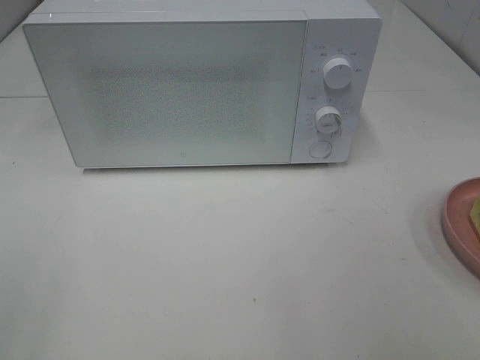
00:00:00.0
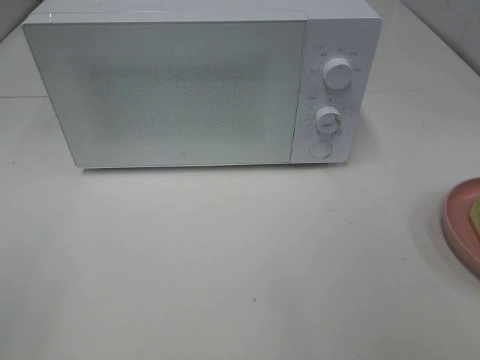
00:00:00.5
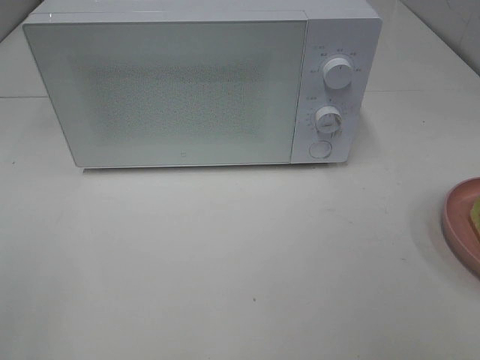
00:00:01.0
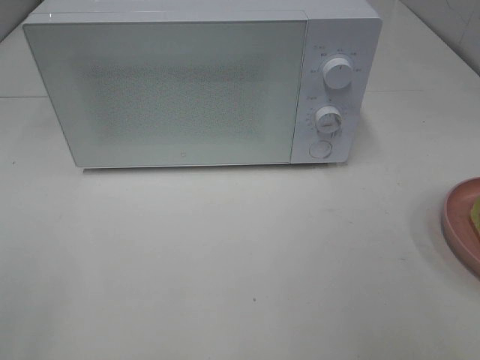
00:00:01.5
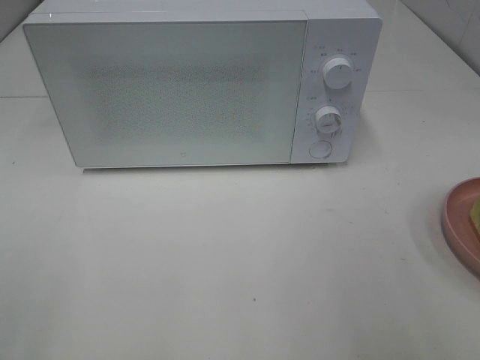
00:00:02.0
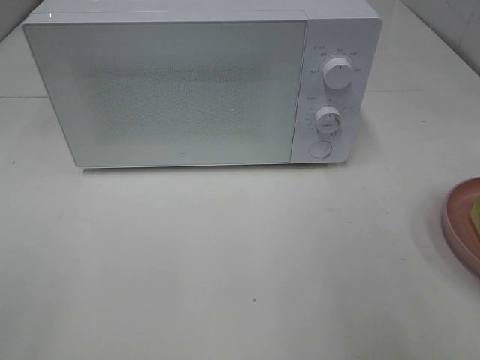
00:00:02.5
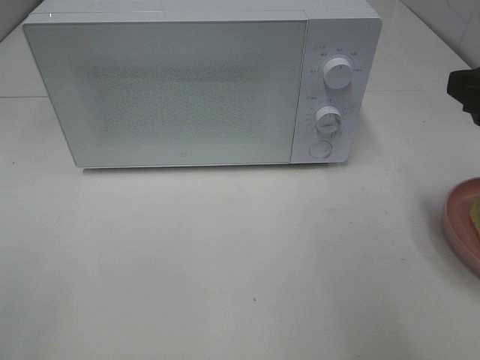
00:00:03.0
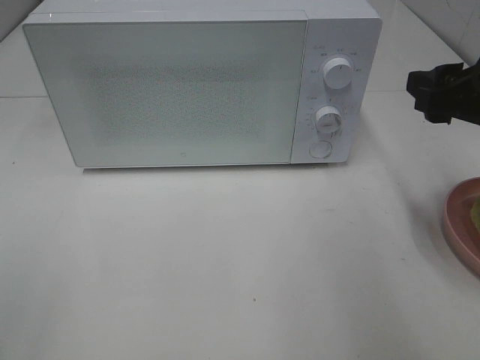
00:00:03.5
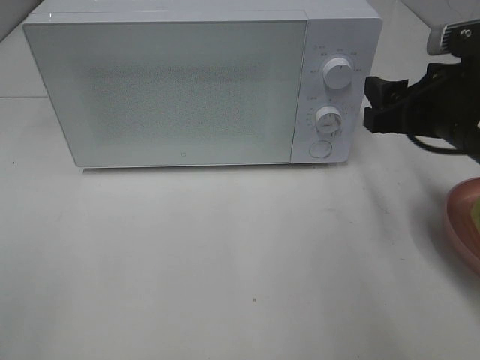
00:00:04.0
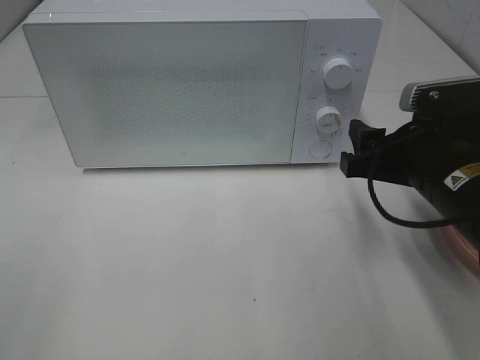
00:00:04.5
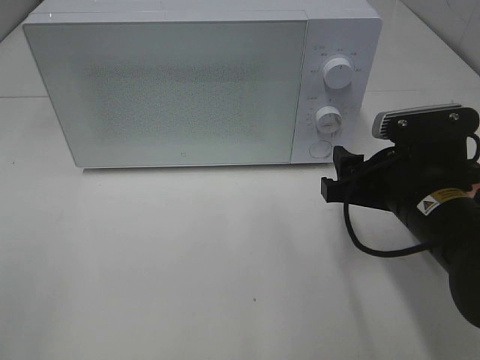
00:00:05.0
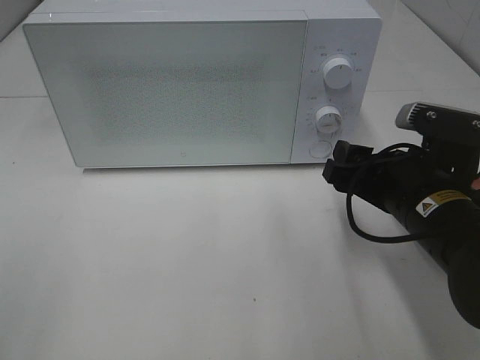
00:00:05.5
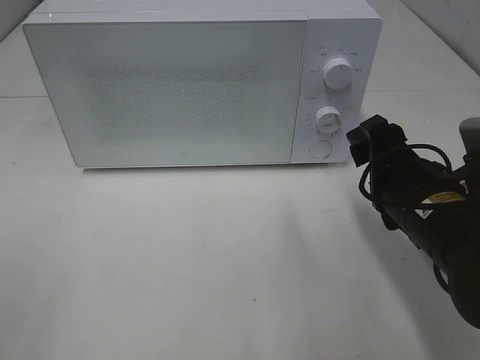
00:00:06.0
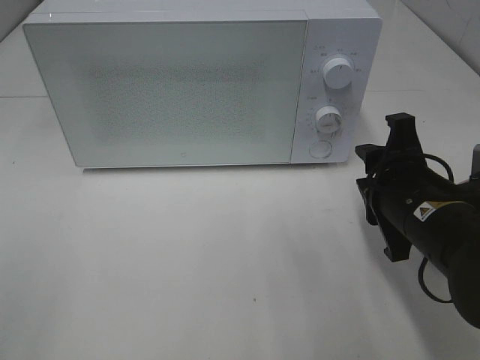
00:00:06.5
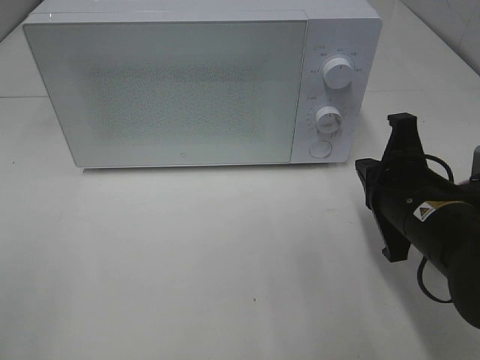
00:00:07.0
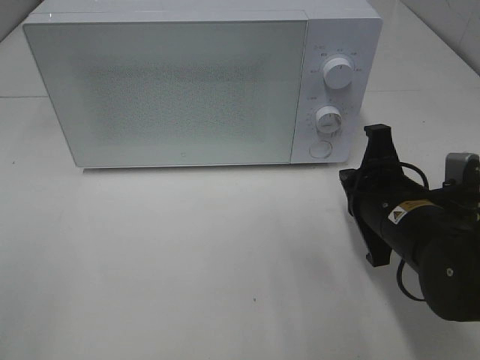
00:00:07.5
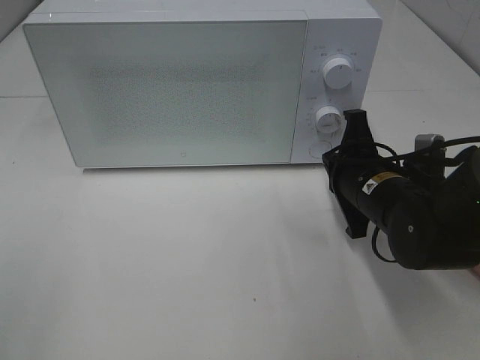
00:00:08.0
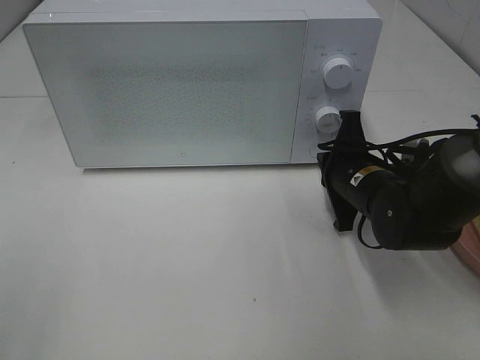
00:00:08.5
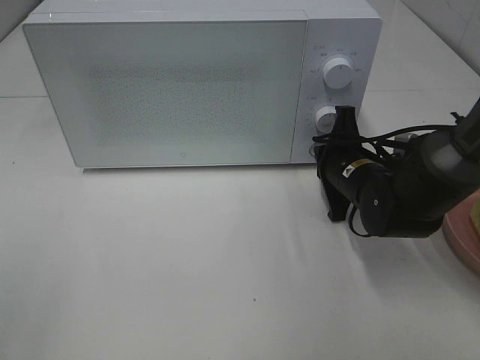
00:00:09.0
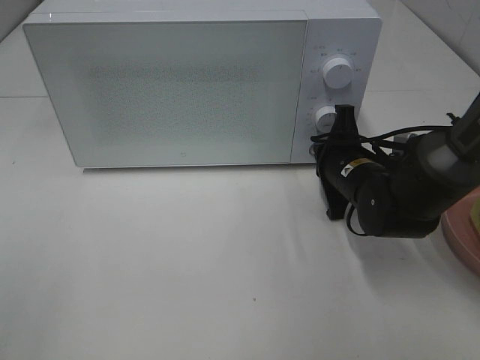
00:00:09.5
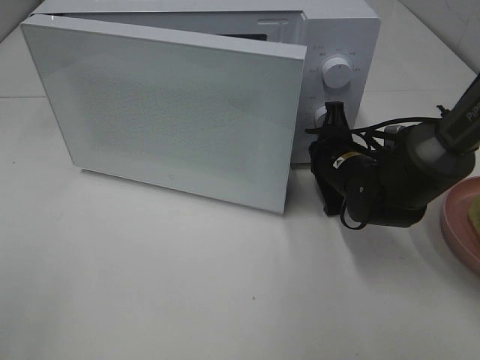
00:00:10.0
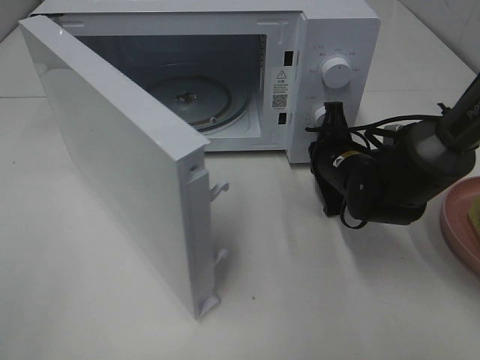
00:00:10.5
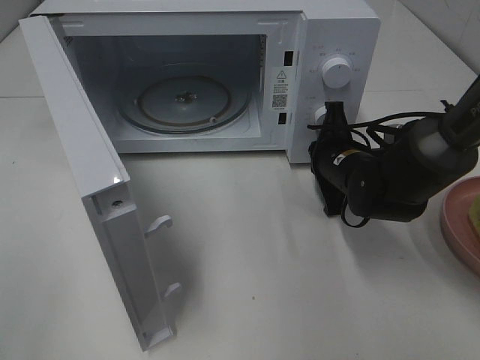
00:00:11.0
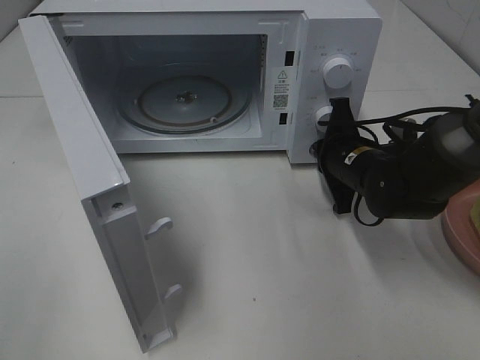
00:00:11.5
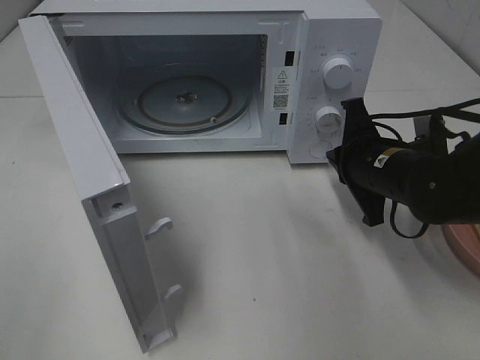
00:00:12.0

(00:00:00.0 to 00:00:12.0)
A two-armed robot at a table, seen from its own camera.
Task of the whole recording: Heat Sandwich.
Step, 00:00:00.0 - 00:00:11.5: Right hand: press the switch.
00:00:02.0 - 00:00:04.0: The right gripper moves forward and downward, some 20 cm.
00:00:04.0 - 00:00:06.0: The right gripper heads downward, covering about 5 cm.
00:00:06.0 - 00:00:08.0: The right gripper goes some 5 cm forward, and closes up.
00:00:08.0 - 00:00:10.0: The right gripper shifts some 5 cm forward.
00:00:10.0 - 00:00:12.0: The right gripper goes some 5 cm backward.

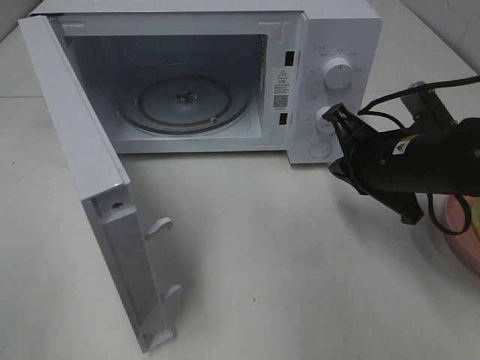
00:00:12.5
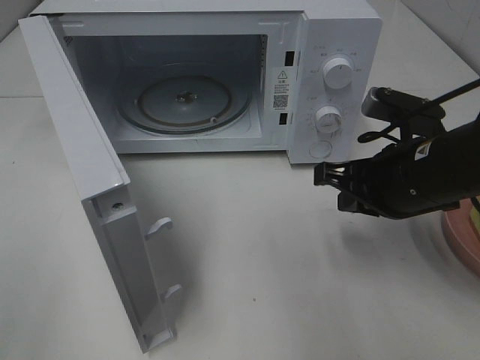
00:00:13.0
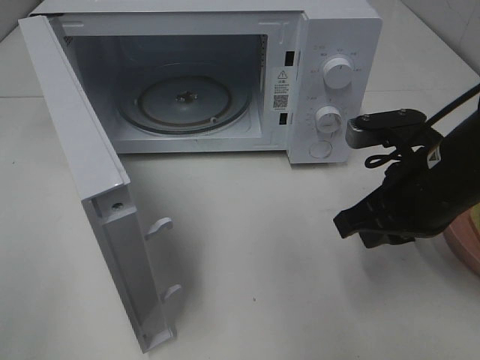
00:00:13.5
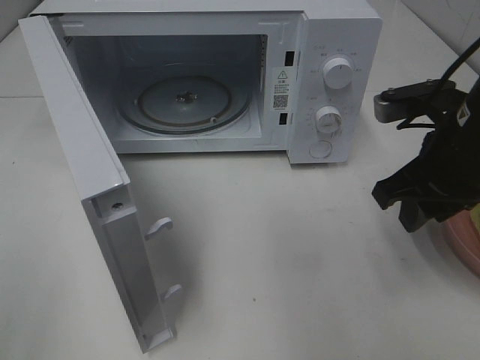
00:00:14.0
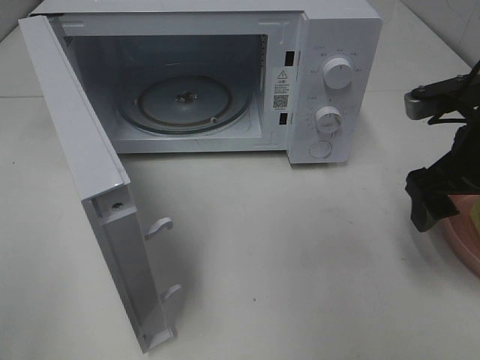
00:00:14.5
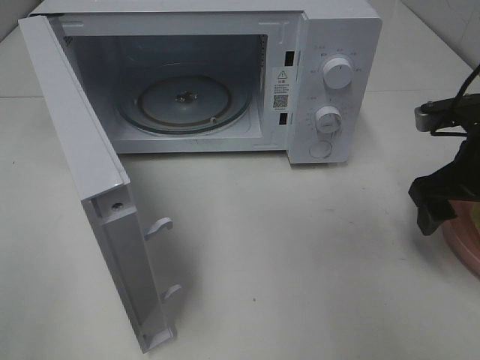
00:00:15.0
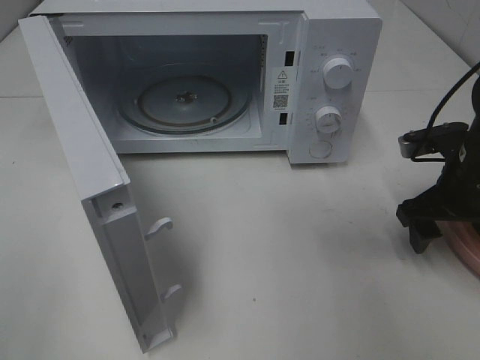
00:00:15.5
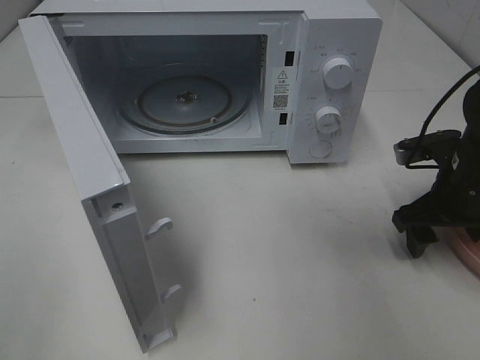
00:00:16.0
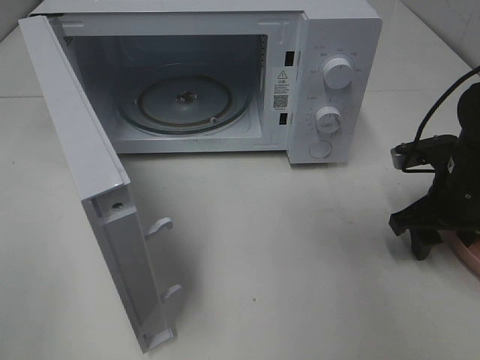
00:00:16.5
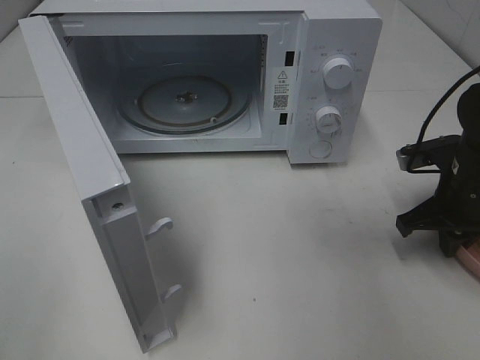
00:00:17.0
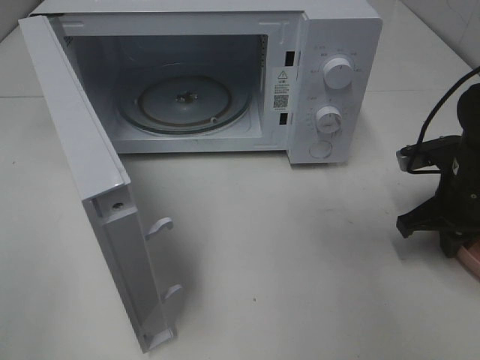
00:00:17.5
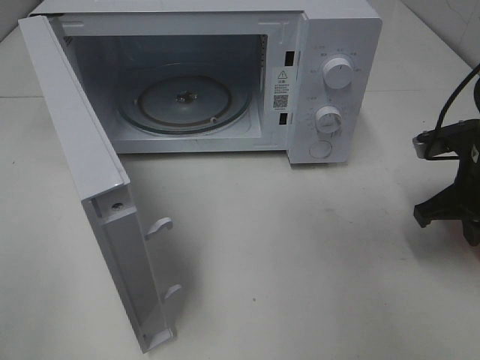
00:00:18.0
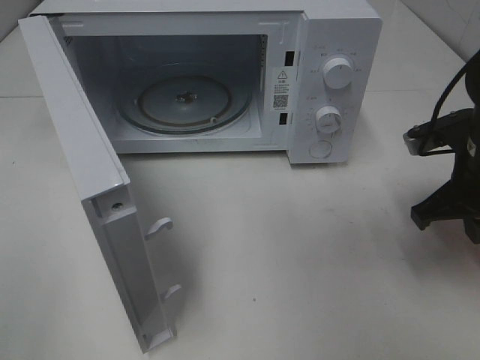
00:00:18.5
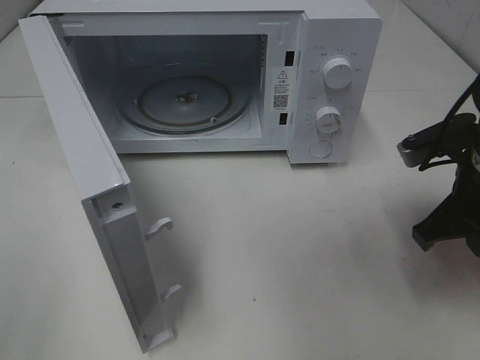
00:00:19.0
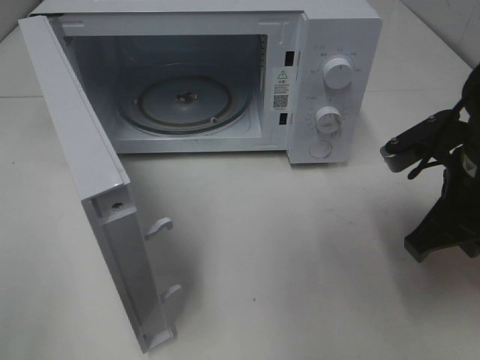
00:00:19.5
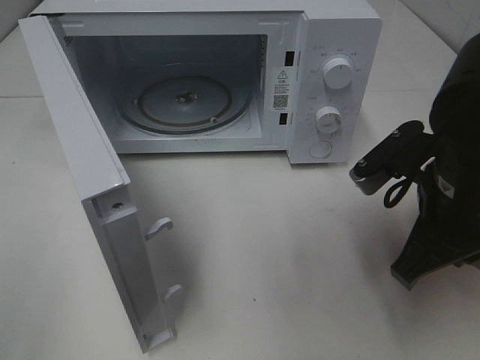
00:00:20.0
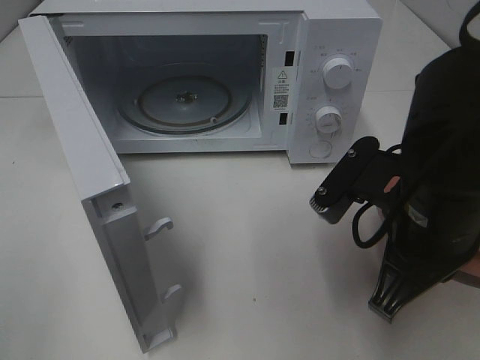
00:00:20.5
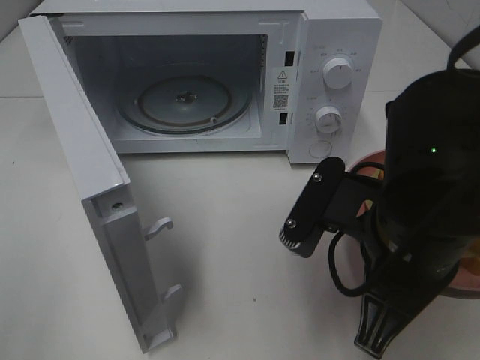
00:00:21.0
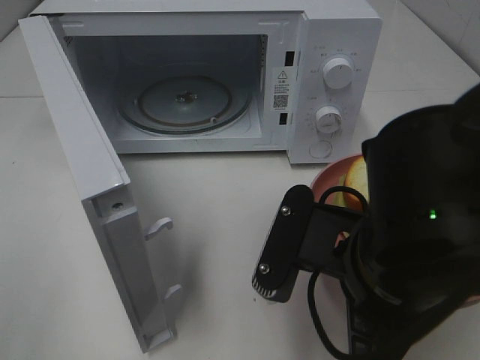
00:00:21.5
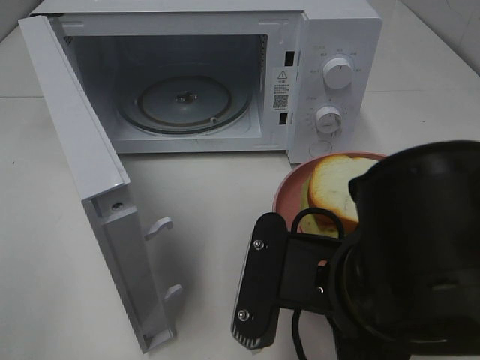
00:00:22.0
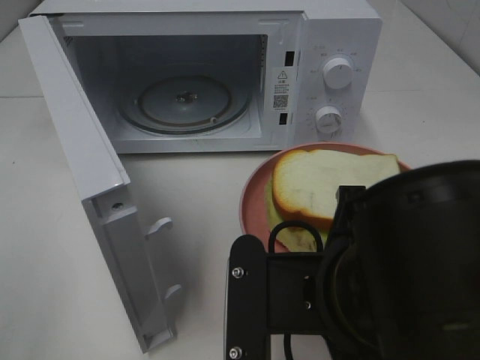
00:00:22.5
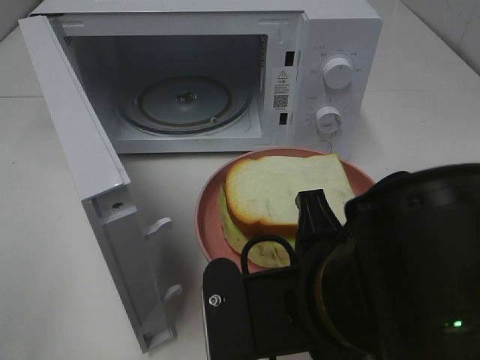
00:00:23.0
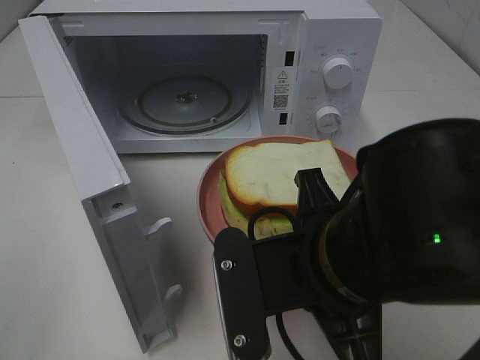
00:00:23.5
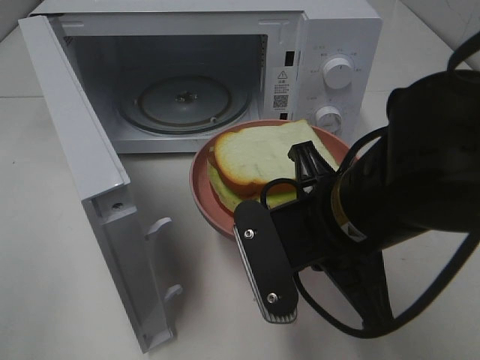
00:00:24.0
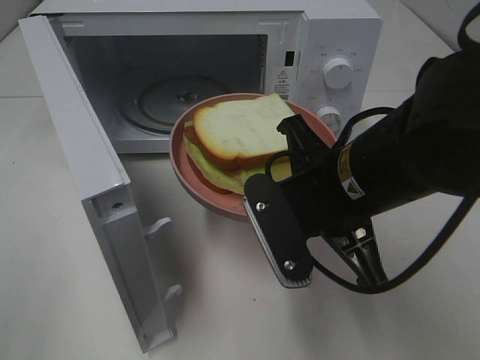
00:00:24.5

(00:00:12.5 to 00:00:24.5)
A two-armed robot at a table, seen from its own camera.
Task of the whole recording: Heat Sandwich.
Step, 00:00:12.5 - 00:00:16.5: Right hand: grab the plate with the sandwich.
00:00:12.5 - 00:00:14.5: The right gripper heads to the right and upward, covering roughly 10 cm, and opens its fingers.
00:00:14.5 - 00:00:16.5: The right gripper goes about 10 cm downward.
00:00:16.5 - 00:00:18.5: The right gripper goes about 5 cm upward, and closes.
00:00:18.5 - 00:00:20.5: The right gripper shifts about 15 cm to the left and backward.
00:00:20.5 - 00:00:22.5: The right gripper heads backward and to the left, covering about 10 cm.
00:00:22.5 - 00:00:24.5: The right gripper is displaced forward by some 10 cm.

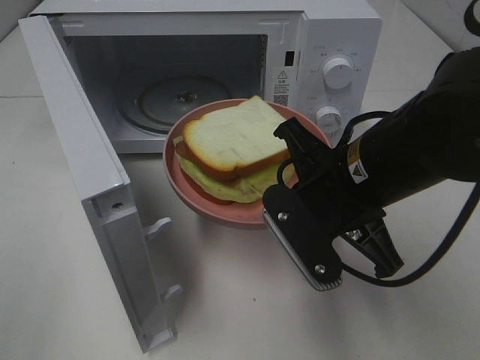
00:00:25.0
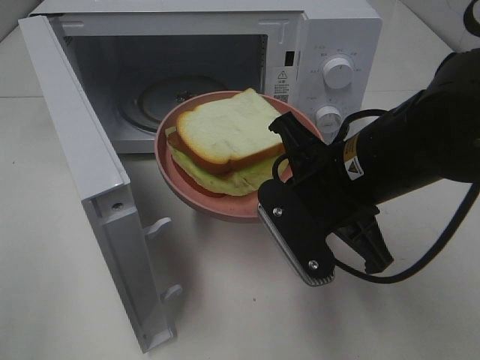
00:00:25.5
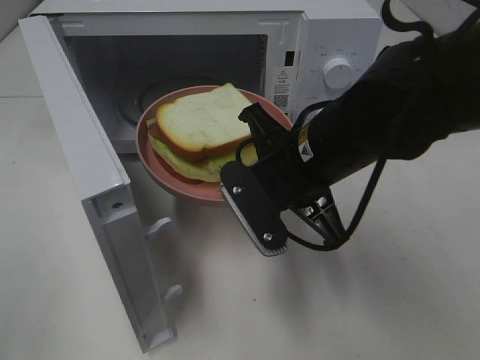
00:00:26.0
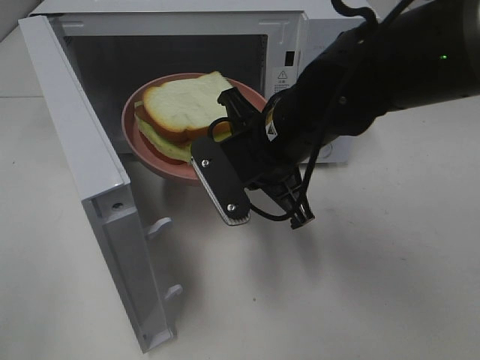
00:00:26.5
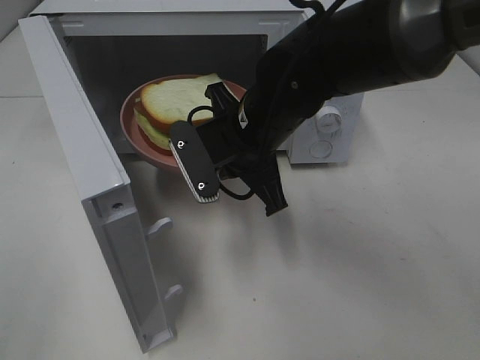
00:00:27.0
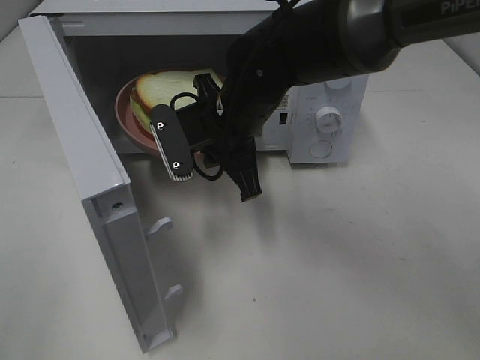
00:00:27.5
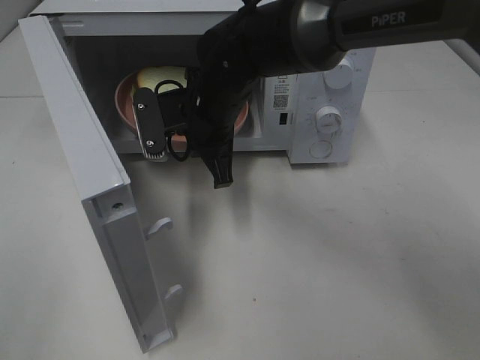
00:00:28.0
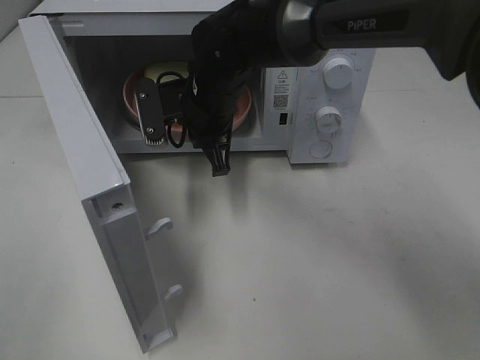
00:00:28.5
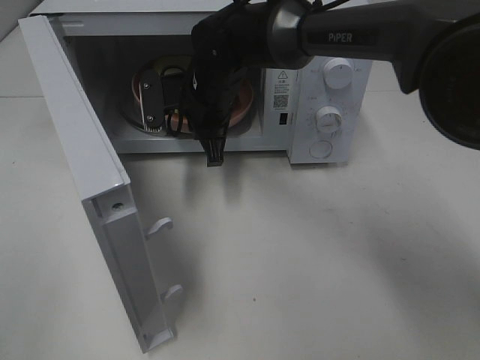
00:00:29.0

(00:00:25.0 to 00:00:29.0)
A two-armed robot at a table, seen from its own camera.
Task of the whole recording: Heat Sandwich.
00:00:25.0 - 00:00:27.0: The right gripper travels forward and to the left by about 10 cm.
00:00:27.0 - 00:00:29.0: The right gripper travels forward by approximately 10 cm.
